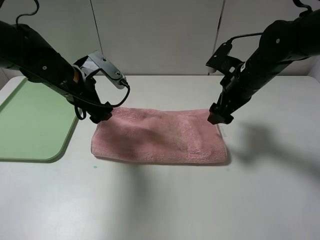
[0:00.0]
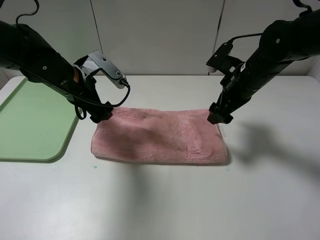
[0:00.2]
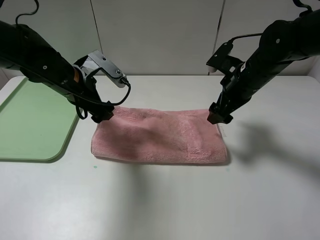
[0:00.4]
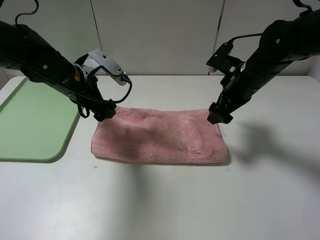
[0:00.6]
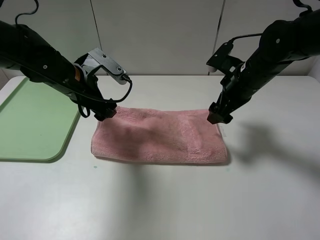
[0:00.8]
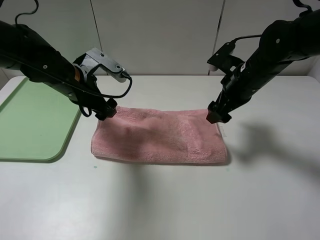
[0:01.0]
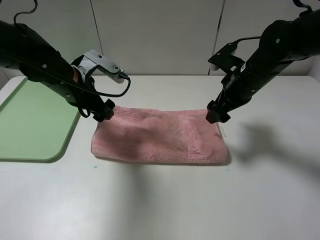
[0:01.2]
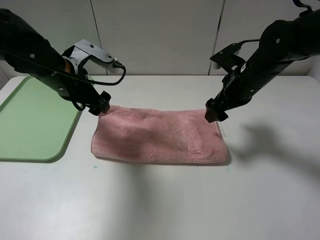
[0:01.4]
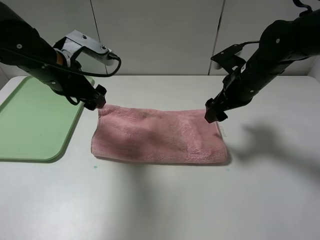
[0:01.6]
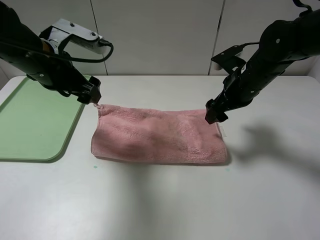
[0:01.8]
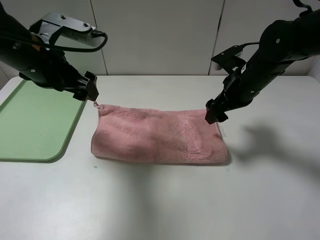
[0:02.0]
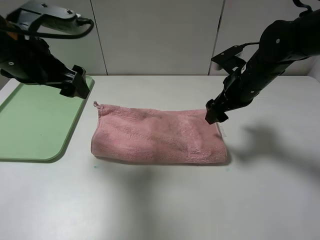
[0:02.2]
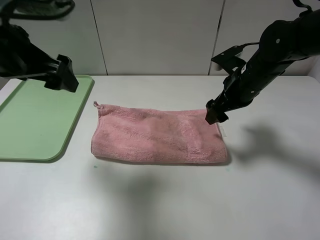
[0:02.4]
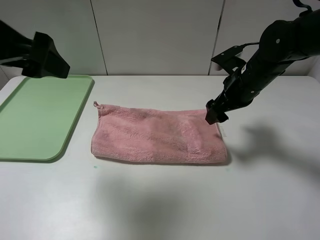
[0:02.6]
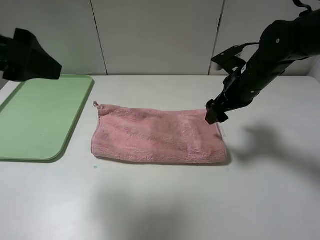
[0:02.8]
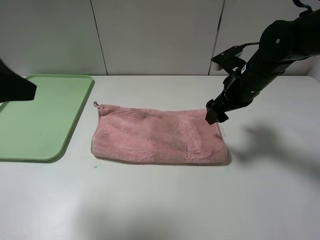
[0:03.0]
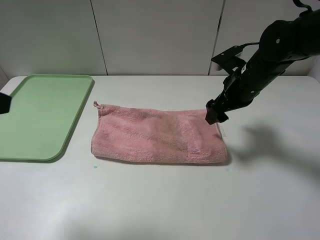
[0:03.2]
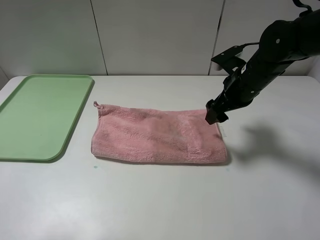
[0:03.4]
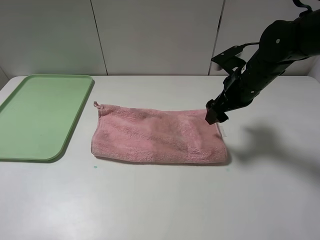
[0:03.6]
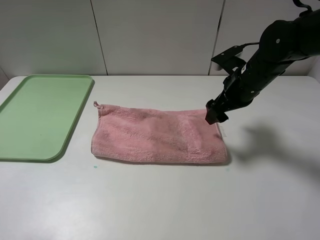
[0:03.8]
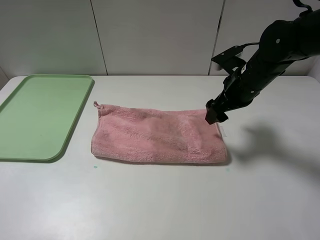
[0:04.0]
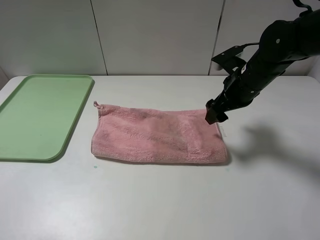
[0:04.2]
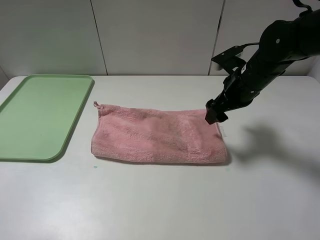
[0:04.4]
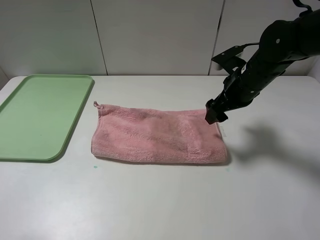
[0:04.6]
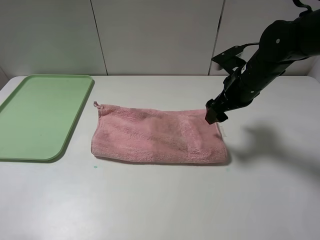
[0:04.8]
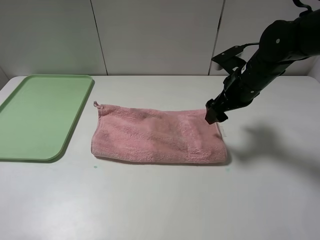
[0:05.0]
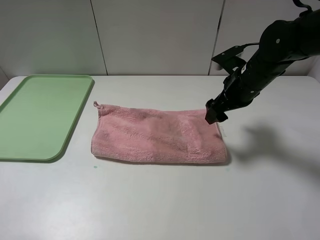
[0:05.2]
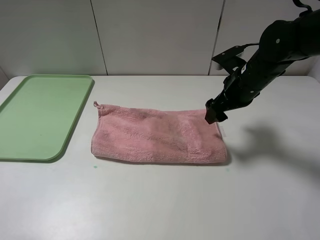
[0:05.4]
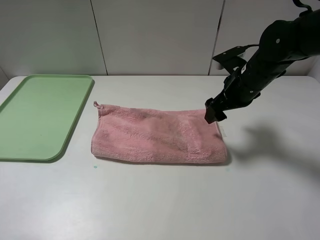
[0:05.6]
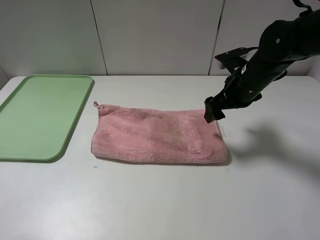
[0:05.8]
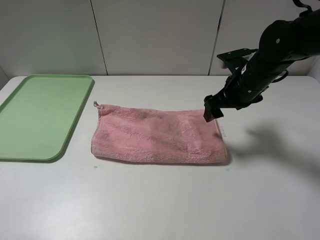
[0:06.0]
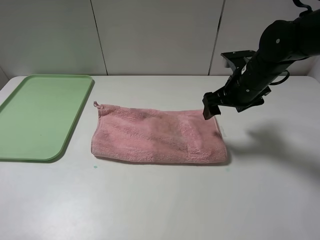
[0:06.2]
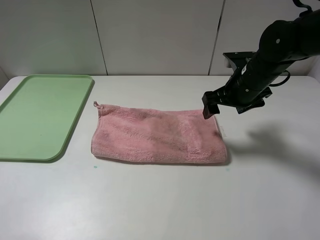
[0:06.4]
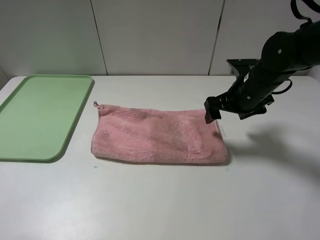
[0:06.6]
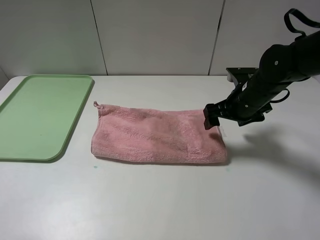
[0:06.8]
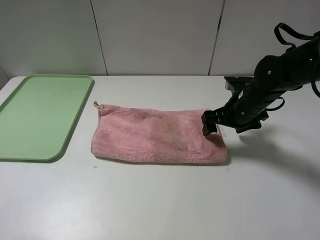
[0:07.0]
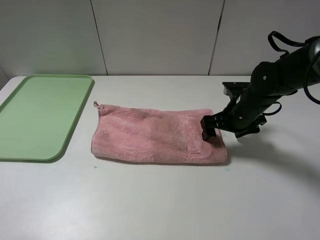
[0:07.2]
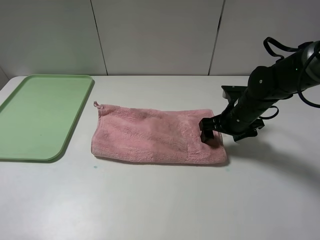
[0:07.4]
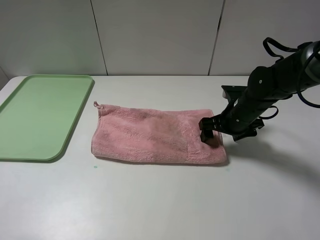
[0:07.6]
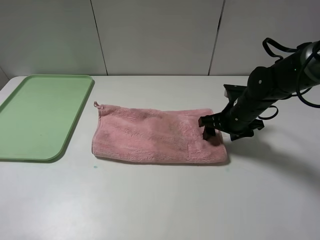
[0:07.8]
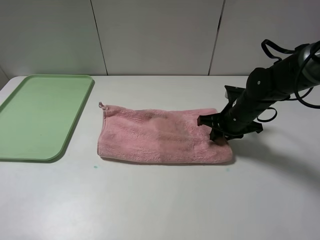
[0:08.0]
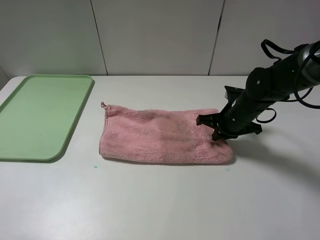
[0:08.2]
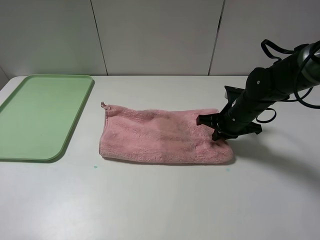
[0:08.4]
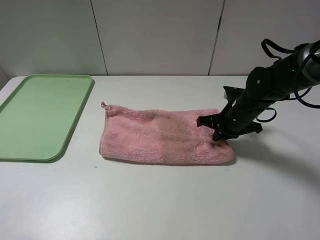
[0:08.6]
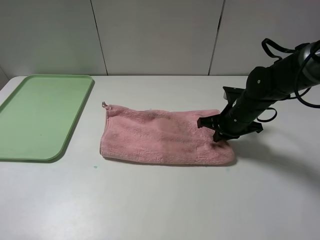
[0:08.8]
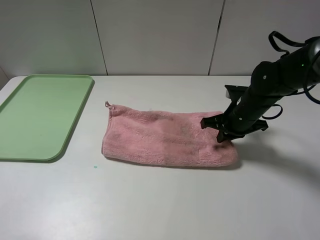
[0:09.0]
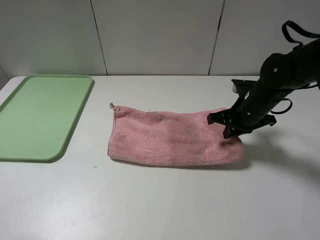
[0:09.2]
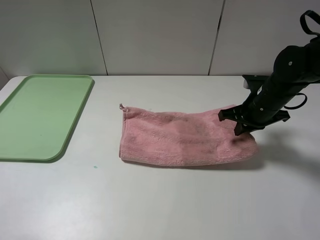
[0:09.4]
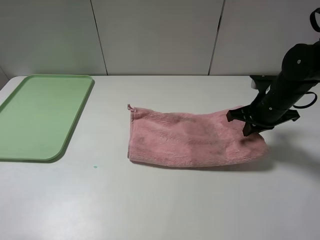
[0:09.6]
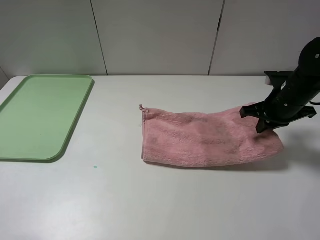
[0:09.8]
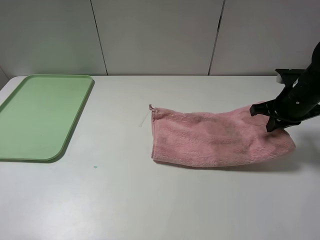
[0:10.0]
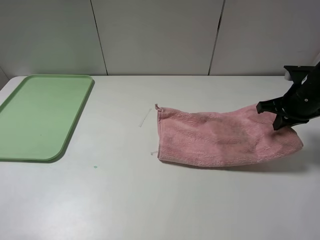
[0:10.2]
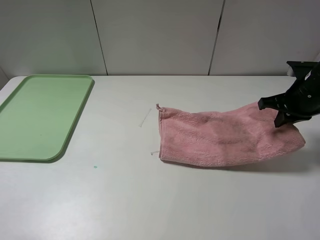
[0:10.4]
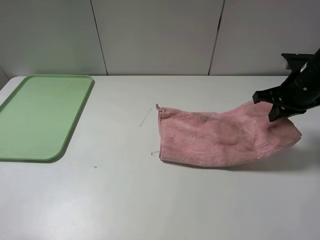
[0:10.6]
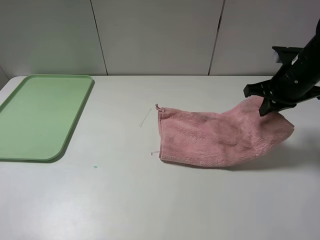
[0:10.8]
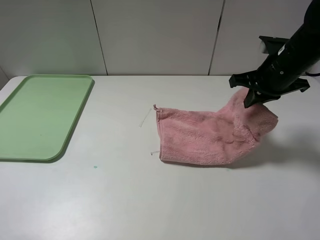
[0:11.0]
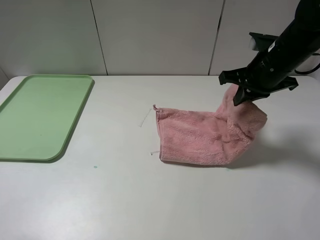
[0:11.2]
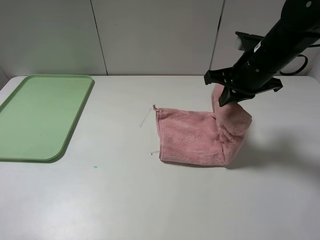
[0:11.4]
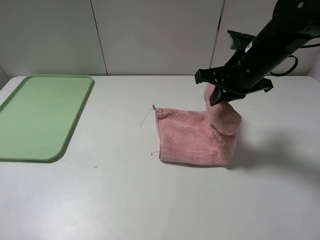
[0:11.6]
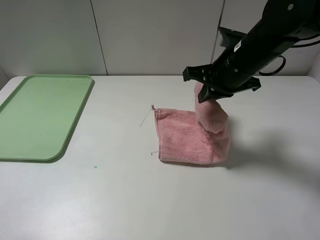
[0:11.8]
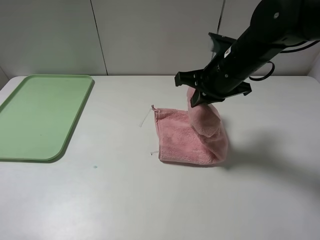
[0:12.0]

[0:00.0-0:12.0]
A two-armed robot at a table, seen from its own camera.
0:00.0 to 0:01.6: The left gripper moves about 5 cm.
0:01.6 to 0:03.0: The left gripper heads backward and upward, covering about 20 cm.
0:03.0 to 0:04.4: The left gripper goes about 15 cm backward, downward and to the left.
0:06.0 to 0:07.6: The right gripper goes some 10 cm downward.
0:07.6 to 0:09.0: The right gripper closes.
0:09.0 to 0:10.4: The right gripper travels to the right and upward by roughly 10 cm.
0:10.4 to 0:12.0: The right gripper heads to the left, covering roughly 15 cm.

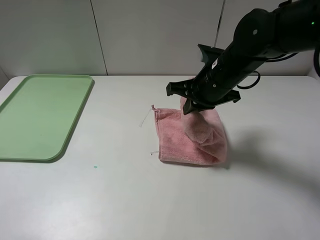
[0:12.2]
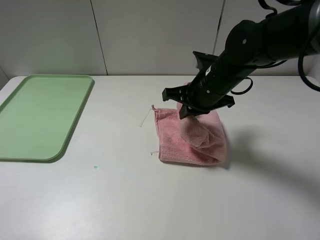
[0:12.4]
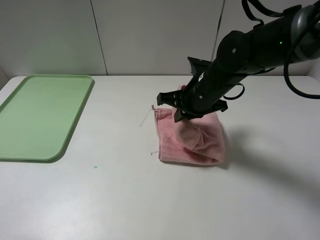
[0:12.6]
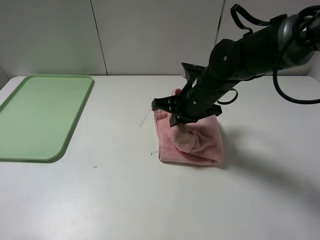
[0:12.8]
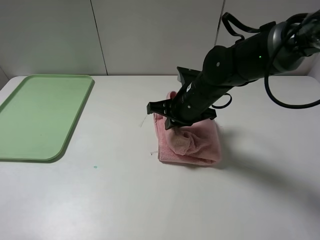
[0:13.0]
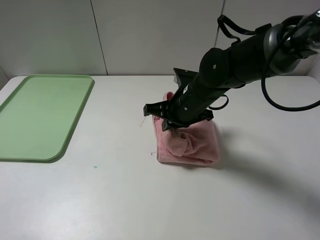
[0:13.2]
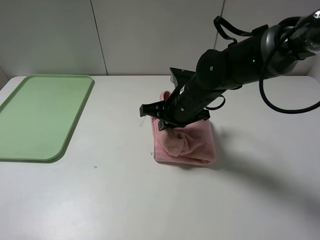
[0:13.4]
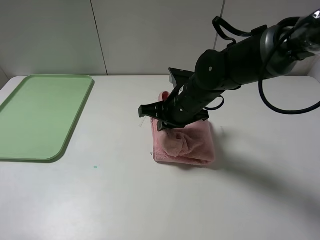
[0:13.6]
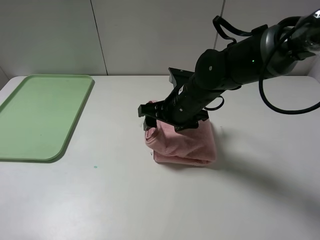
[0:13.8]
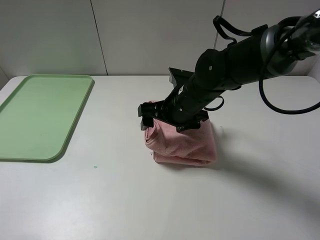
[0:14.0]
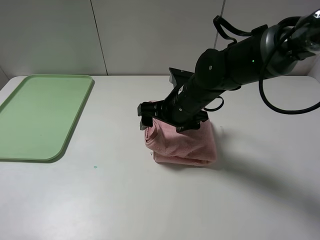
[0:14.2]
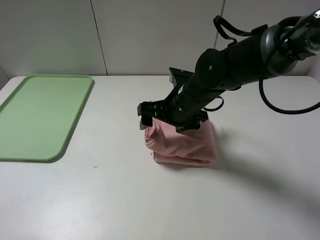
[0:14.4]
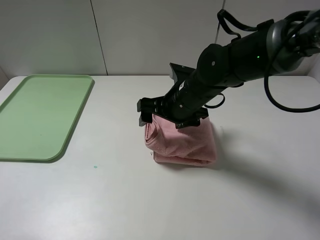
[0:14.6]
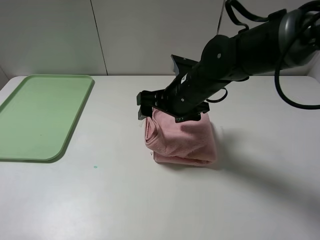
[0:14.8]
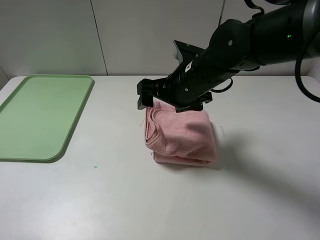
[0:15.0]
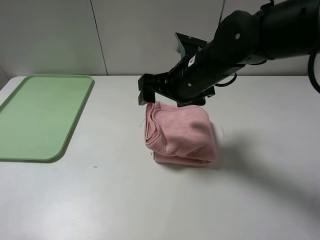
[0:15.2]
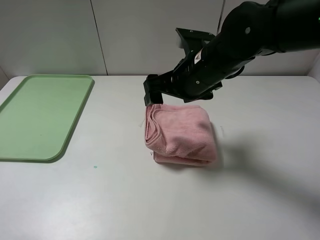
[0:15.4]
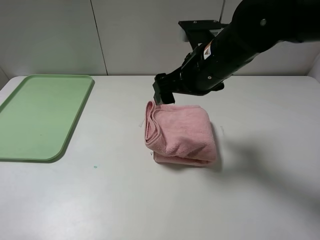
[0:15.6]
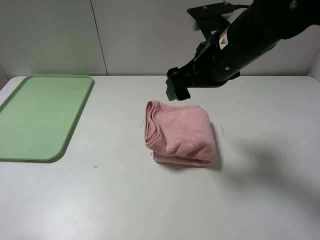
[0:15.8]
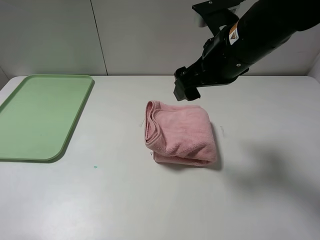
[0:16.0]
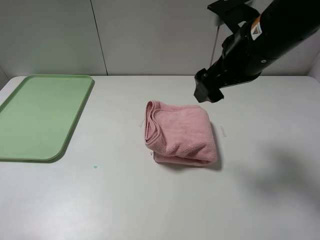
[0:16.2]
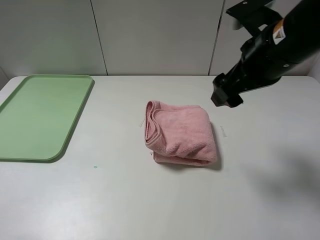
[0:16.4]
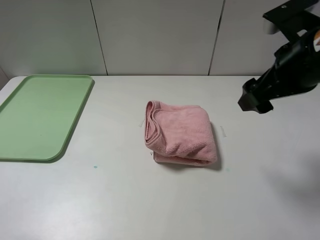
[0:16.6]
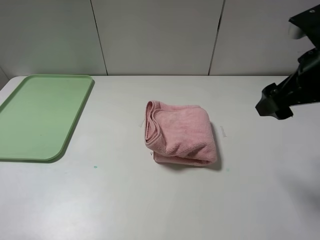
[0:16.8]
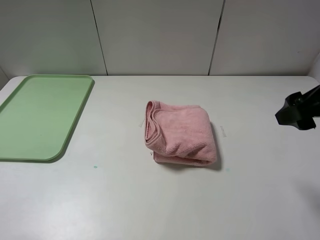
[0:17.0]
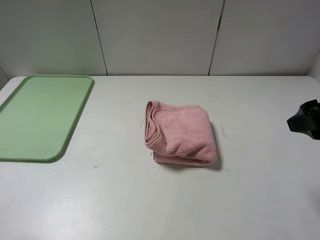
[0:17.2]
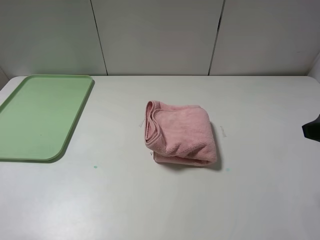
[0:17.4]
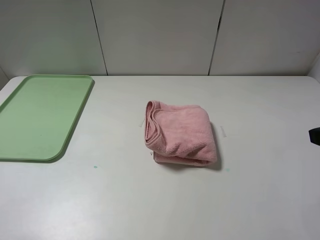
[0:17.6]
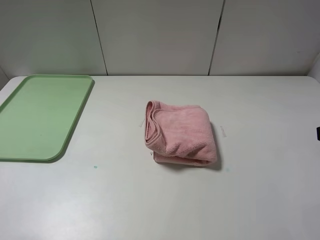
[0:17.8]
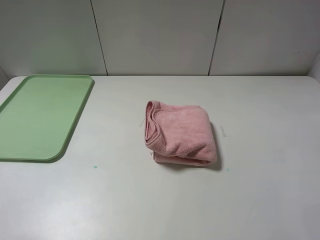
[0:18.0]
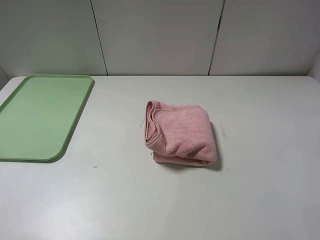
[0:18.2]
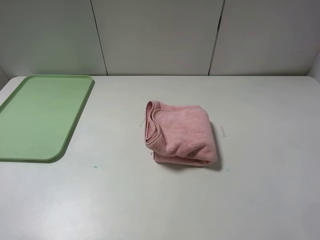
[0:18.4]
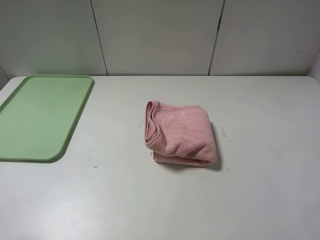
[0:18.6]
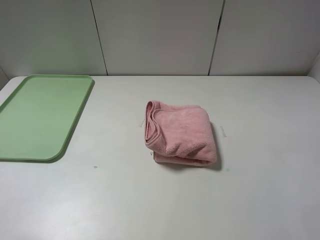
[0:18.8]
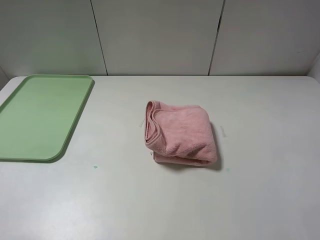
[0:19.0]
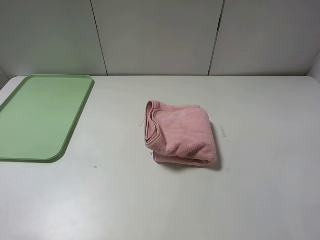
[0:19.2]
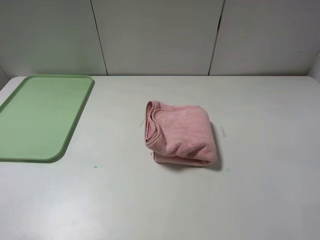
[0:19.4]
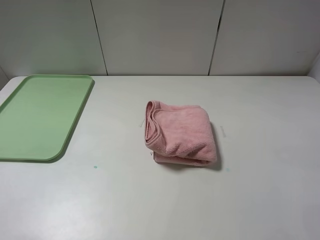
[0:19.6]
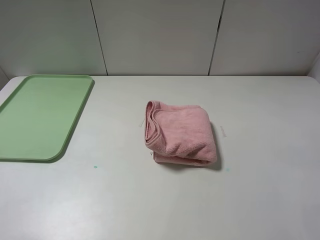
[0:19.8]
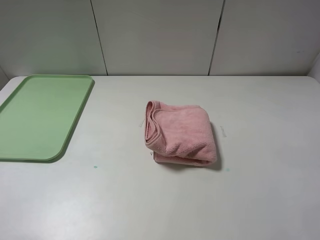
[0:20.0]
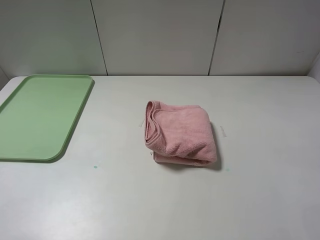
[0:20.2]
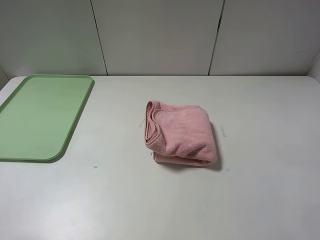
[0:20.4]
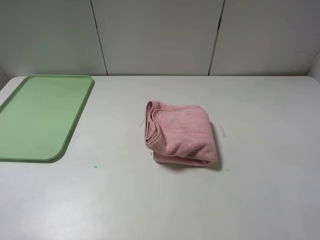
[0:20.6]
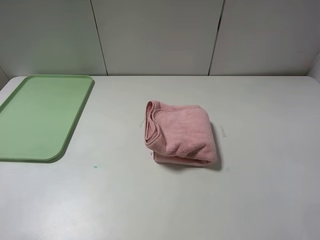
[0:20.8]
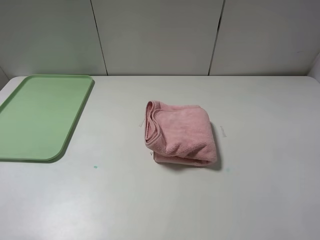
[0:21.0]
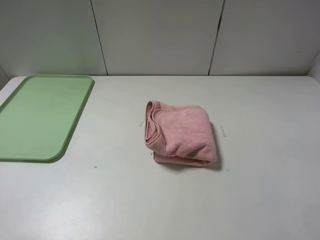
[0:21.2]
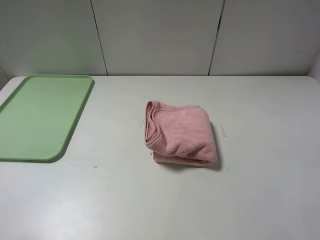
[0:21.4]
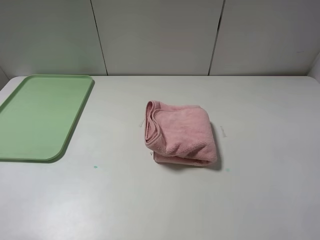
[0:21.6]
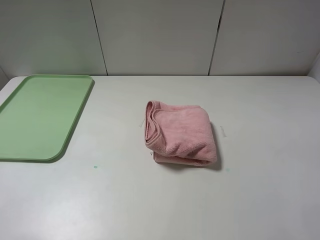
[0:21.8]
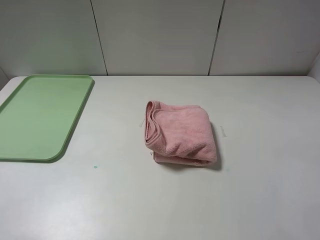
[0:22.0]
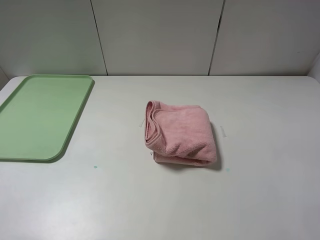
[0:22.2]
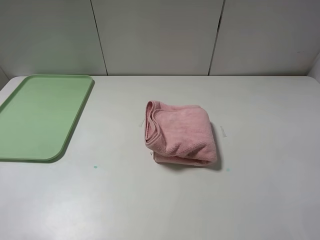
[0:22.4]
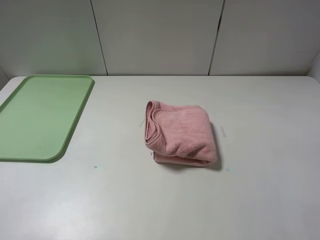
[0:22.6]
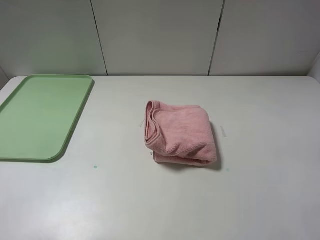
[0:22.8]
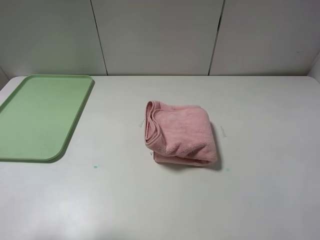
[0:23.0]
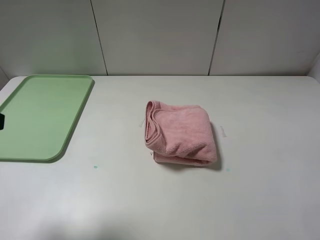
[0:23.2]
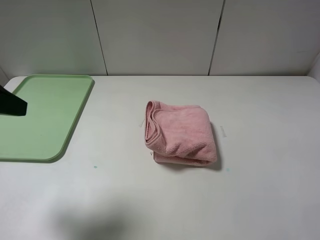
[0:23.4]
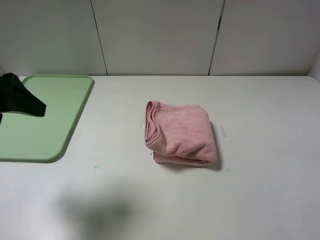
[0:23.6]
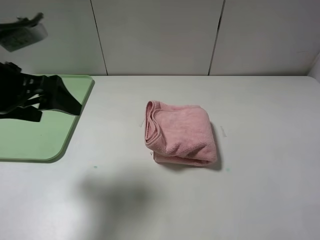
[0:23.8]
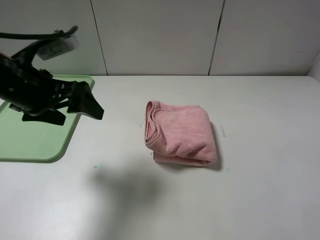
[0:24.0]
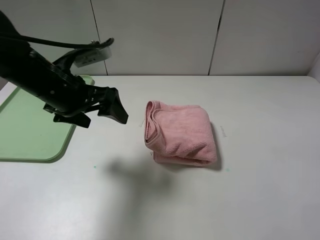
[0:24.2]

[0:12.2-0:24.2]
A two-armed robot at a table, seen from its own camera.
Step, 0:12.2 to 0:14.2: Fold the pink towel from right to left with right gripper.
0:12.2 to 0:13.8: The right gripper moves to the left, some 5 cm, and opens up.
0:13.8 to 0:15.2: The right gripper travels upward by approximately 5 cm.
0:15.2 to 0:16.6: The right gripper shifts roughly 15 cm to the right, upward and backward.
0:16.6 to 0:18.2: The right gripper moves backward and to the right, about 15 cm.
0:22.6 to 0:24.2: The left gripper shifts some 25 cm forward and to the right.
